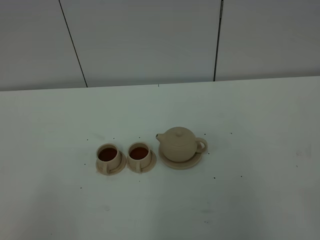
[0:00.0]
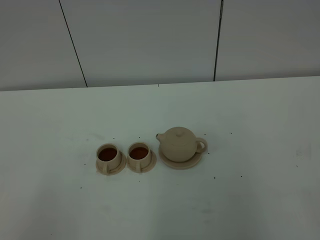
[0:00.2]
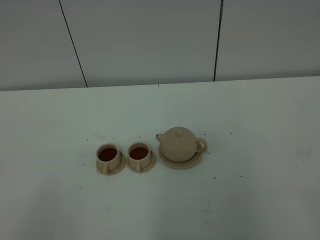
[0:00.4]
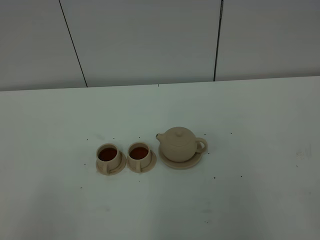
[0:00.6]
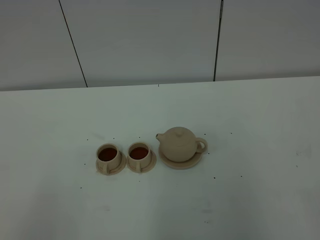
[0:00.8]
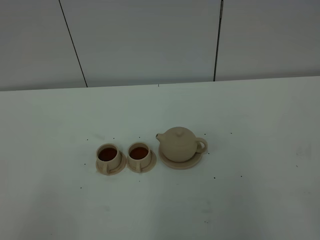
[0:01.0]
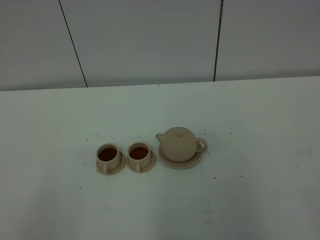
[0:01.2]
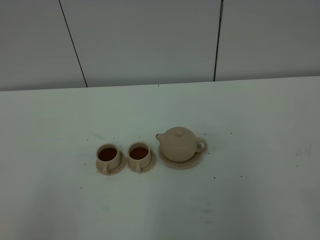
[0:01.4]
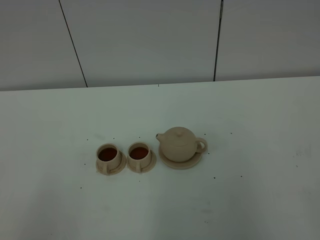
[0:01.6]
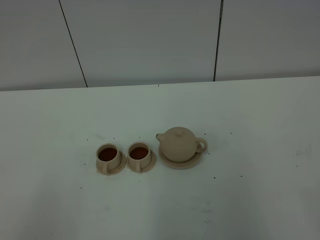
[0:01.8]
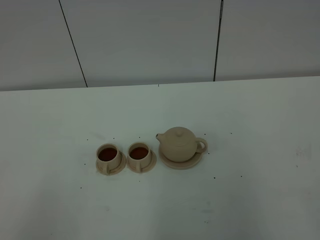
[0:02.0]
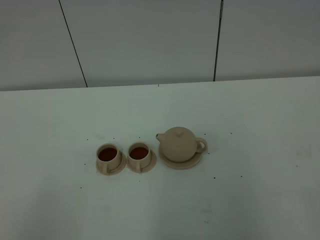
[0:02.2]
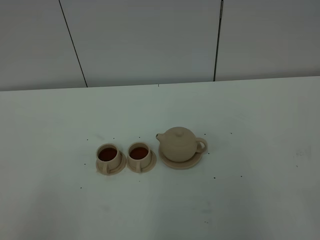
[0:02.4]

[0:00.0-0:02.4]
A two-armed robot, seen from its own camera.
Task of the whole recording: grasp the brown teapot and pour the tea into the two brown teacups one by one, put the brown teapot back in its original place.
0:00.0 to 0:02.4: Both grippers stay put.

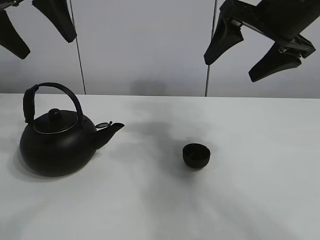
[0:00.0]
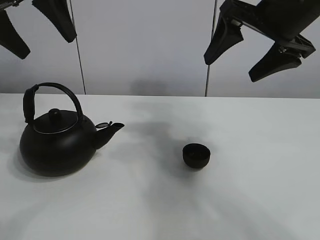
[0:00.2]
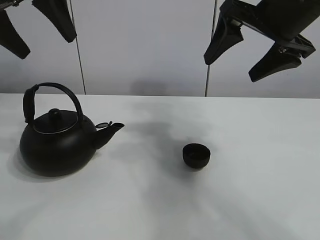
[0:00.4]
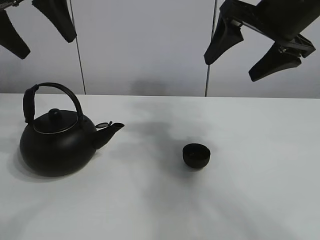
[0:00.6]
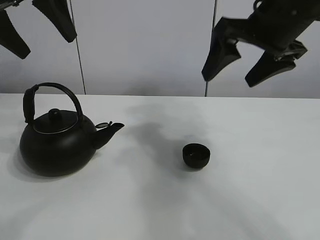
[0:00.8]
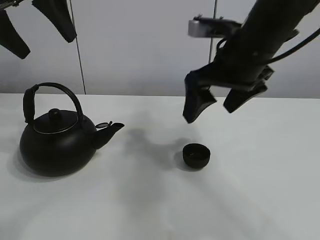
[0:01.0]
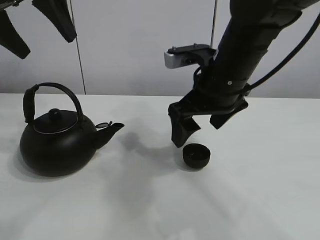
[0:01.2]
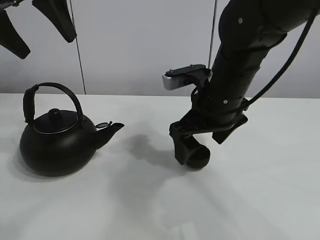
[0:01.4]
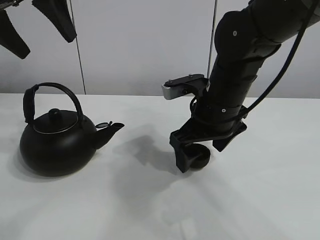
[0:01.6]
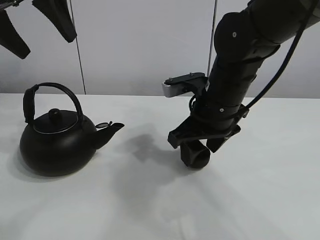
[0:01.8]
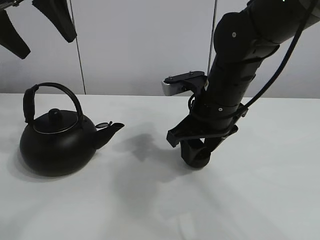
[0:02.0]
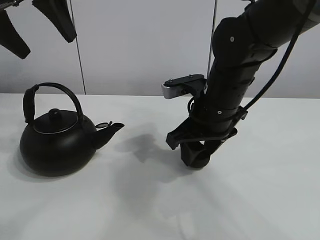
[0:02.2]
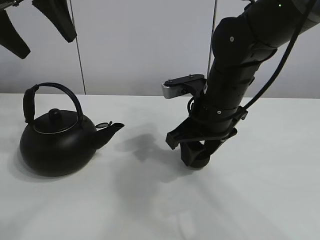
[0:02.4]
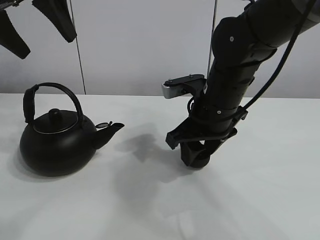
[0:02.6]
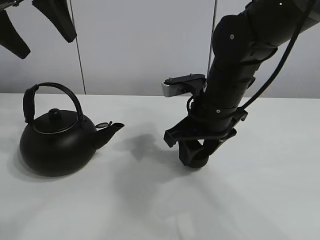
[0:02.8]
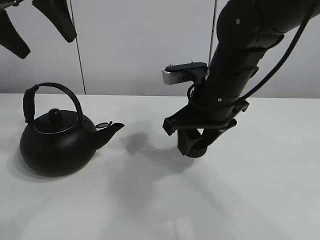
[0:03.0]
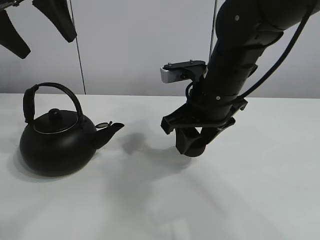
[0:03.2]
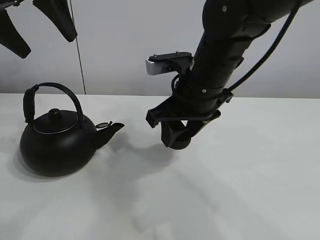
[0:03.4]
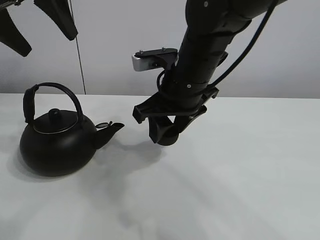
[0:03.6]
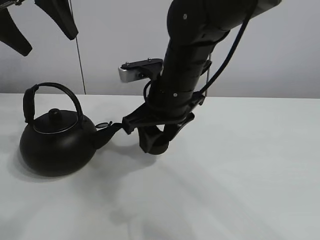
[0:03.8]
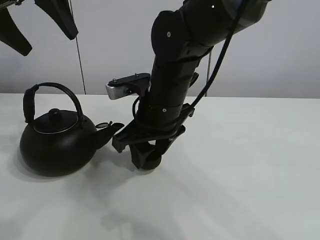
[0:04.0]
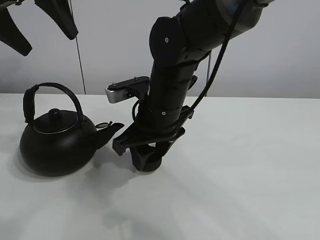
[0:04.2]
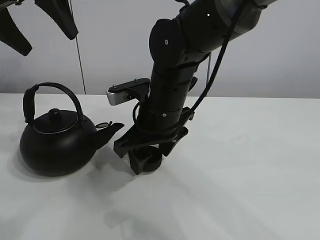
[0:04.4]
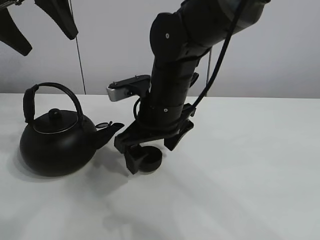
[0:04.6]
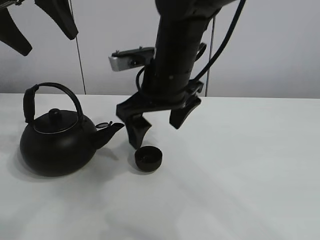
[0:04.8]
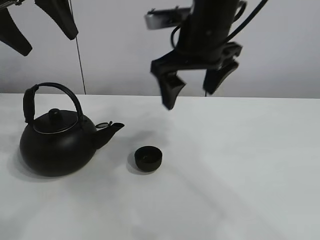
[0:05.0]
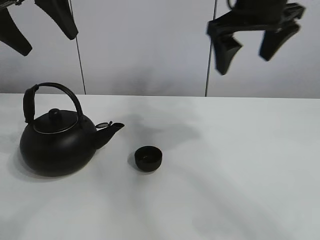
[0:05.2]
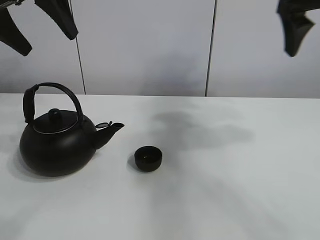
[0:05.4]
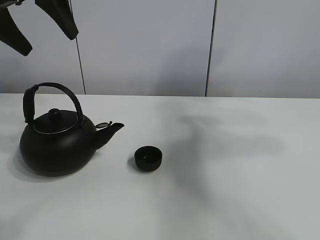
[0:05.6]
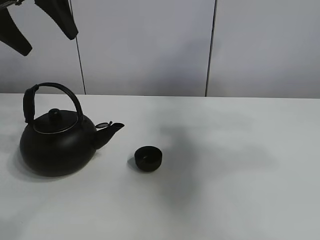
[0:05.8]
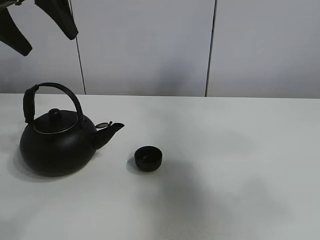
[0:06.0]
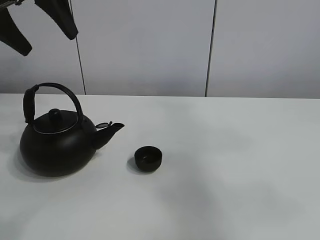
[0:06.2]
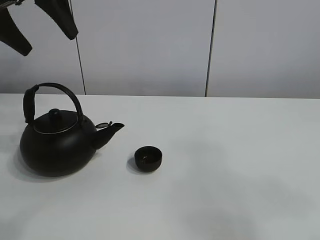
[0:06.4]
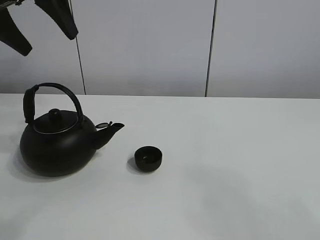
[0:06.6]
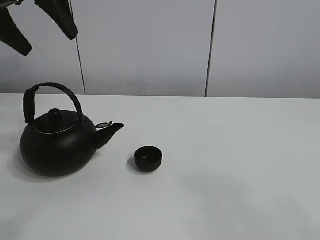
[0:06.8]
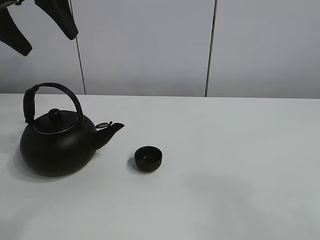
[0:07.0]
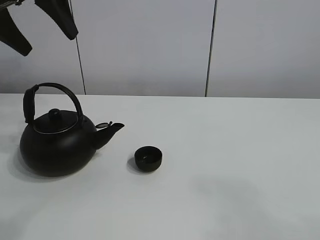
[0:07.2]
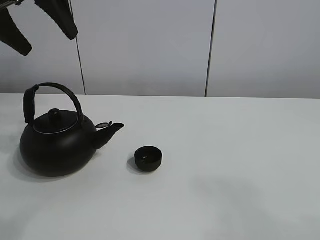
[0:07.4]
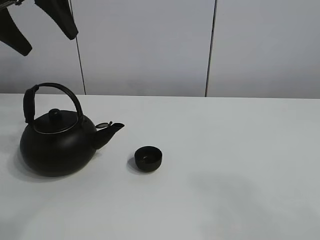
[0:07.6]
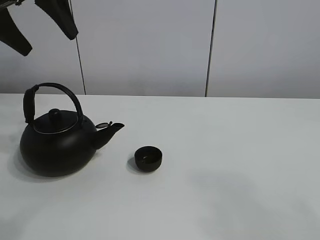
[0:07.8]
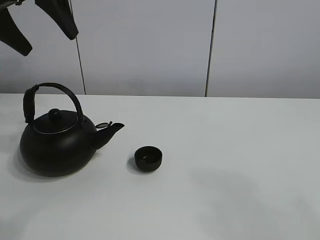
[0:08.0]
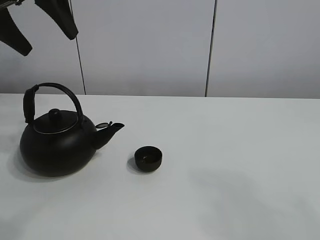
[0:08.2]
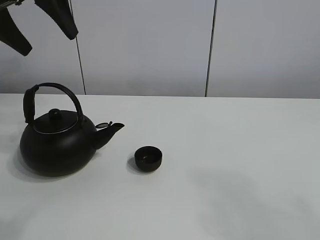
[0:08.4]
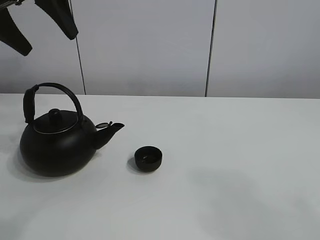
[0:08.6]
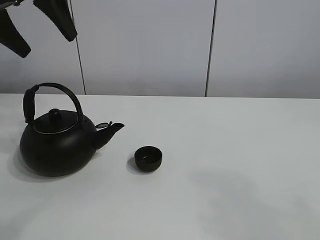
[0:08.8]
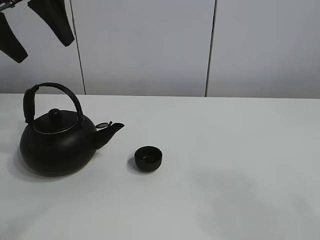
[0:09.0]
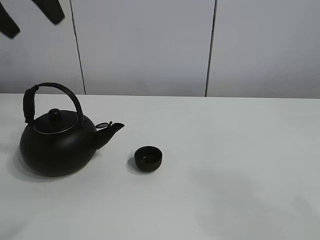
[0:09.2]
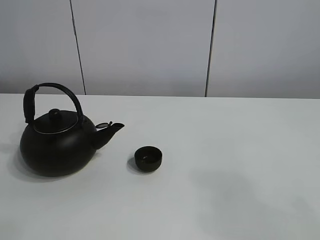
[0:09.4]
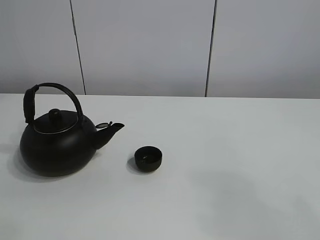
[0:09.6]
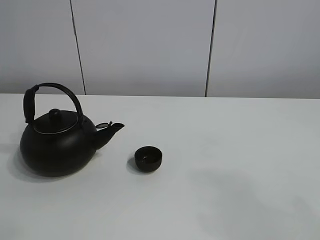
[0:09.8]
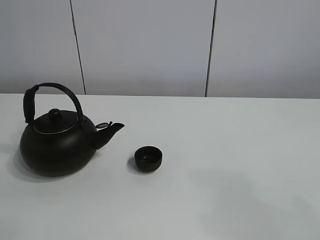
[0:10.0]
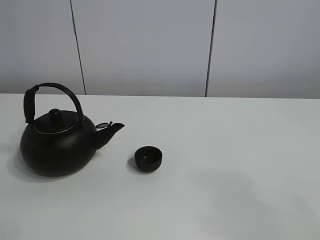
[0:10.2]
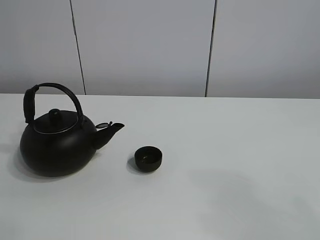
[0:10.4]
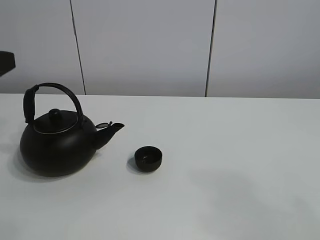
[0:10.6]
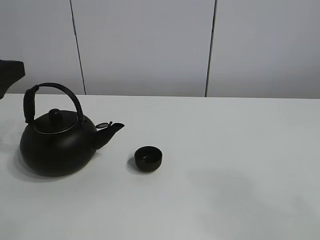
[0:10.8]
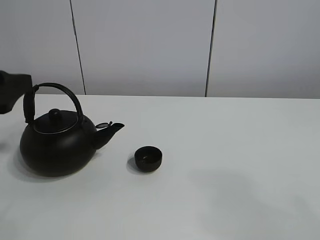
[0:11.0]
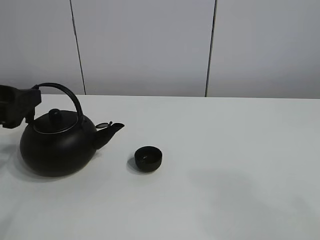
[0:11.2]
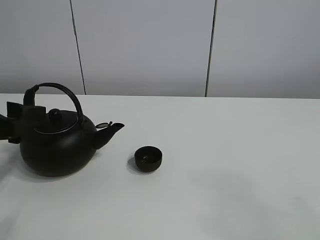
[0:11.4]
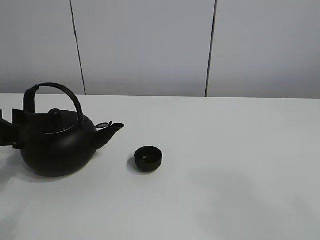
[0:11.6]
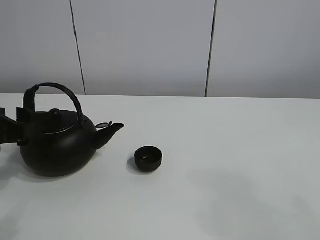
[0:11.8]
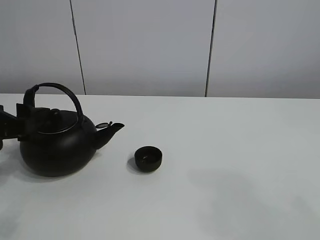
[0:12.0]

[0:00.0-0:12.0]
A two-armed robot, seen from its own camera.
Task of the whole recording: pour tea into the teacup.
Step, 0:00.0 to 0:02.8: Pick up the teacup with the right gripper.
Step, 0:03.0 to 0:04.2: Place the teacup in the center of view with the right gripper.
0:01.6 to 0:03.0: The right gripper closes up.
0:03.0 to 0:04.4: The right gripper heads to the left, covering roughly 10 cm, and opens.
0:04.4 to 0:06.0: The right gripper is displaced upward, to the right and backward by roughly 50 cm, and opens, then closes again.
0:06.0 to 0:07.6: The right gripper goes roughly 25 cm backward and downward.
0:07.6 to 0:09.0: The grippers make only small movements.
0:09.0 to 0:10.4: The left gripper moves backward and downward, approximately 20 cm.
0:10.4 to 0:12.0: The left gripper travels downward and forward by about 15 cm.

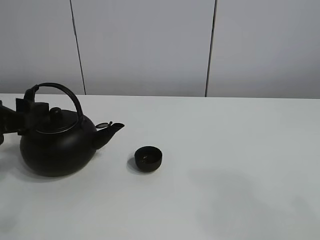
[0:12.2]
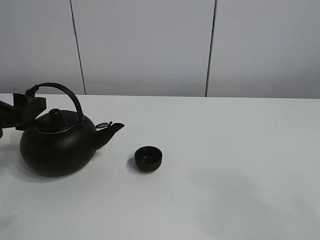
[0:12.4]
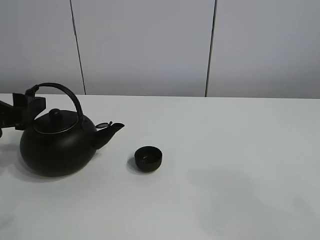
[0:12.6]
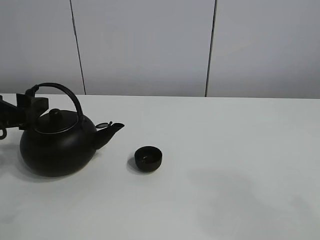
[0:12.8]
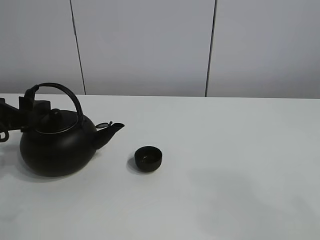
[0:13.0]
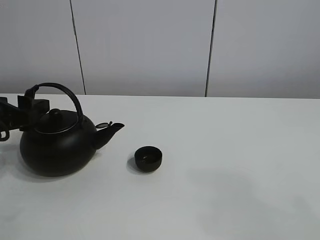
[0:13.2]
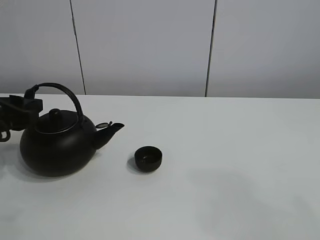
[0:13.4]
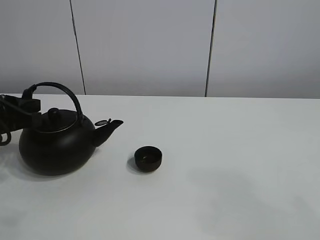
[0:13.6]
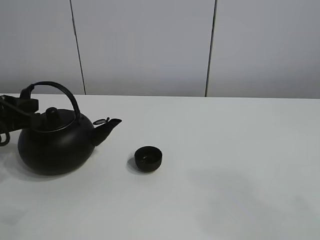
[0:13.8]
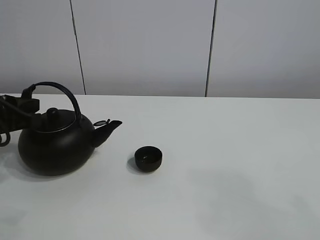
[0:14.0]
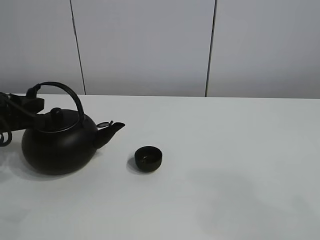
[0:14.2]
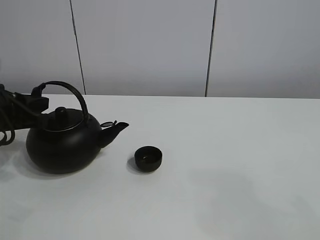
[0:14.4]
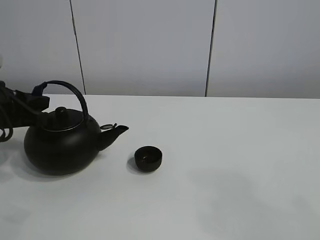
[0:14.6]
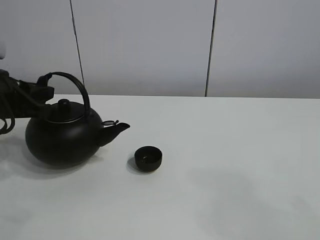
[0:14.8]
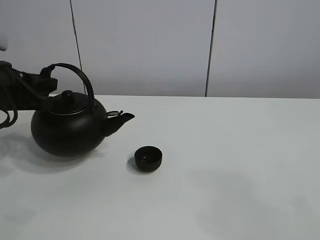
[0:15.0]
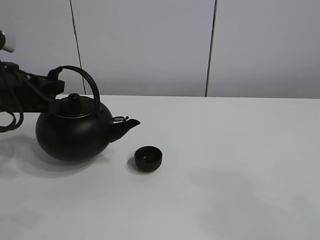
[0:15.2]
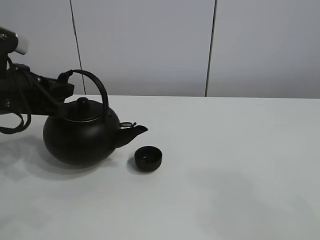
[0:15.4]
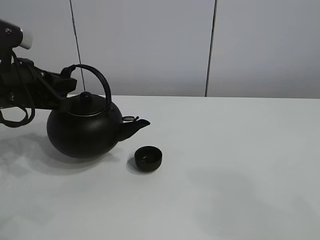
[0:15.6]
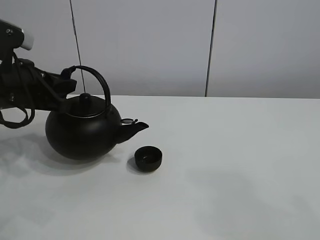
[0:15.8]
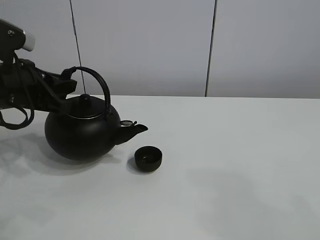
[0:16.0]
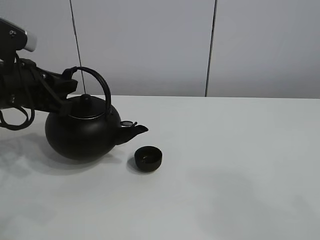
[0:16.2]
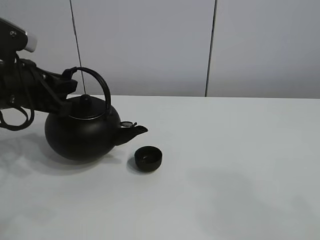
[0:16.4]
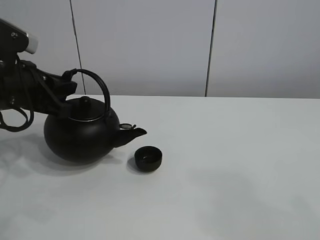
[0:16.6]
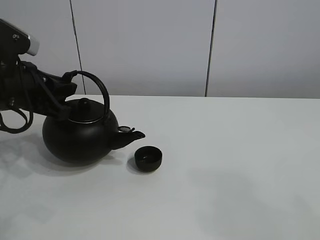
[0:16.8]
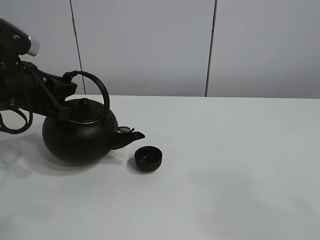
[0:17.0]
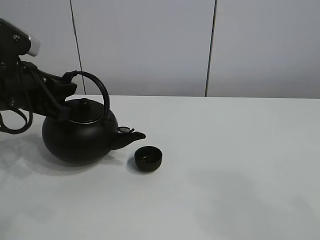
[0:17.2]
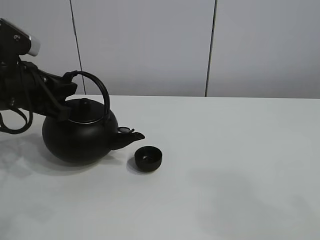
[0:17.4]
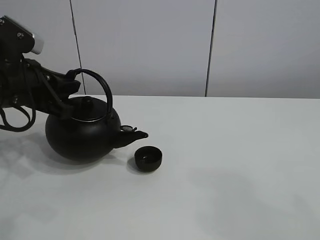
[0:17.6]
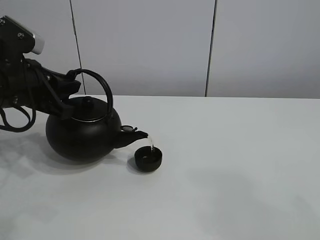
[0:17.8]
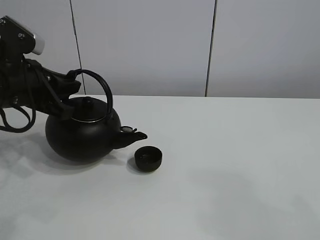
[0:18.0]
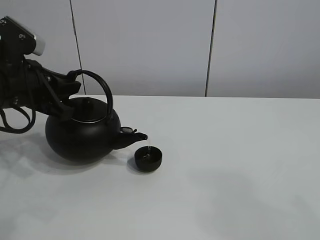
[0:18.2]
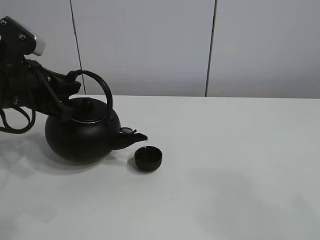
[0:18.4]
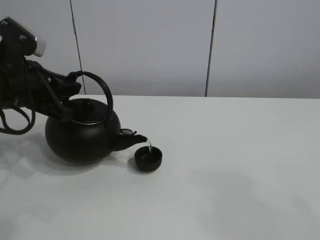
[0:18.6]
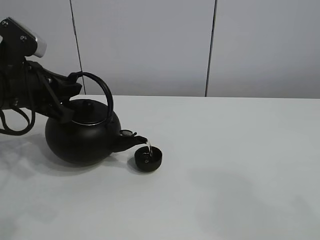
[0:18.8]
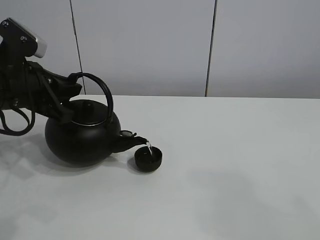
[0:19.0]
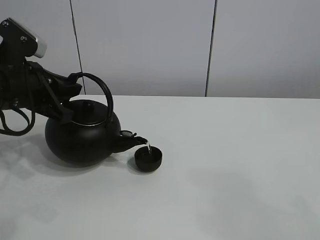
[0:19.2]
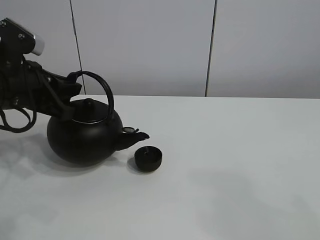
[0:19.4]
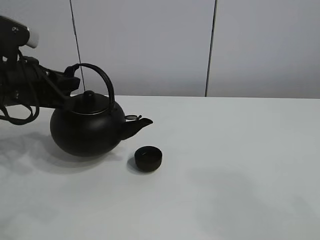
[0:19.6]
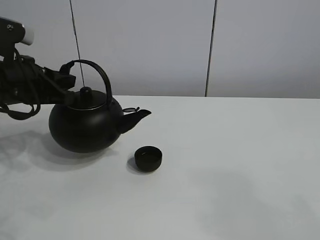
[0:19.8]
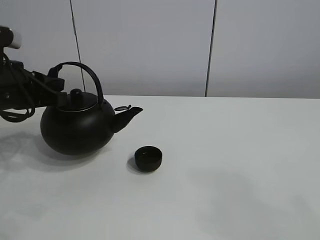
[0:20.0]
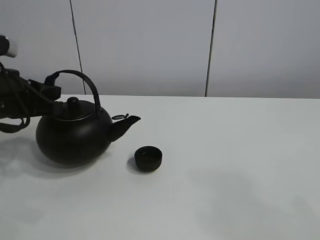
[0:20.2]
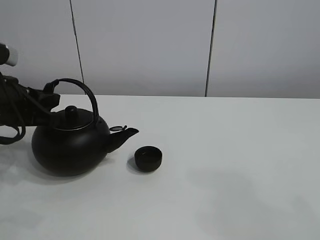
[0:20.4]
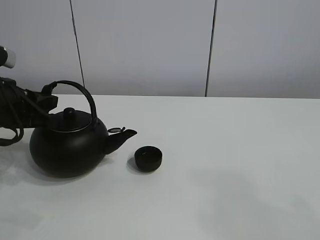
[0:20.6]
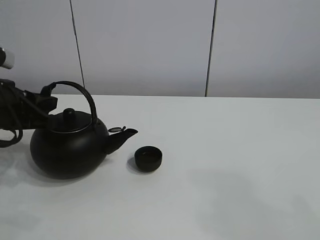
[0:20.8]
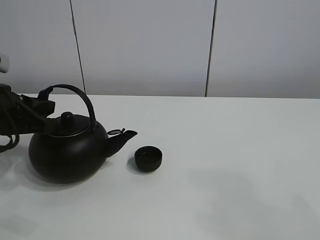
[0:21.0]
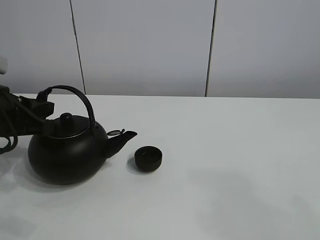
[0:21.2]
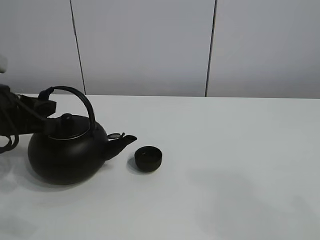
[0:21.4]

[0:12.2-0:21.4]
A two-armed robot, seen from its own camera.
Task of the whole recording: pour tea into the teacup.
Step, 0:12.2 to 0:14.6: Pick up the teapot with the left gripper.
Step, 0:14.8 to 0:19.4: Pour tea into the teacup with the left gripper.
0:12.2 to 0:13.8: The left gripper closes up.
0:13.8 to 0:15.2: The grippers stay close to where they were, moving slightly.
0:15.2 to 0:16.8: The grippers make only small movements.
0:16.8 to 0:18.4: Neither gripper changes place.
0:18.4 to 0:19.8: The grippers make only small movements.
0:19.8 to 0:21.4: The left gripper moves approximately 5 cm.
